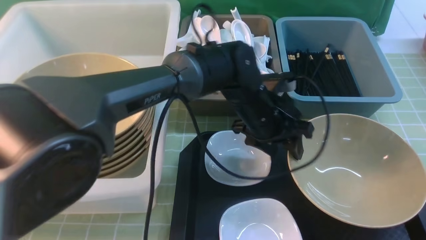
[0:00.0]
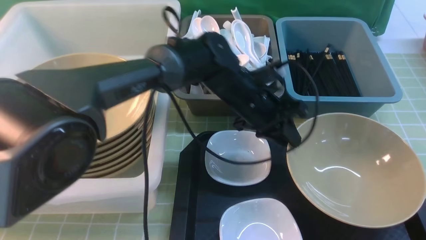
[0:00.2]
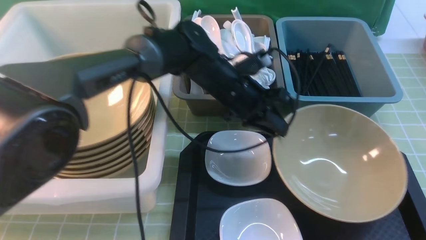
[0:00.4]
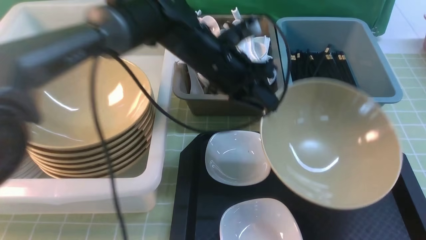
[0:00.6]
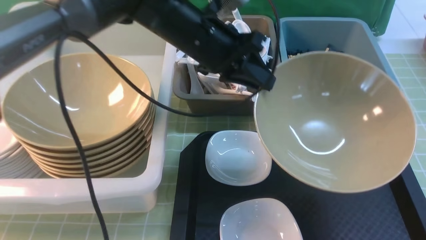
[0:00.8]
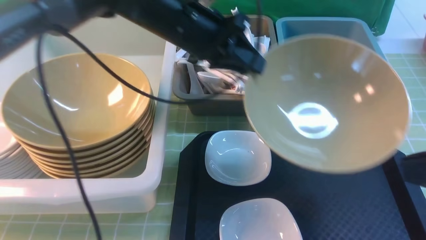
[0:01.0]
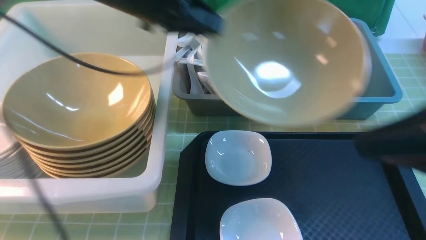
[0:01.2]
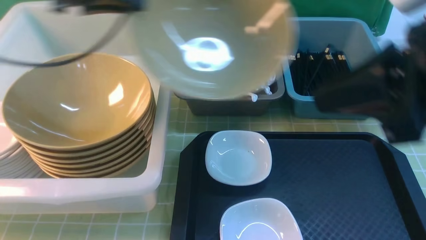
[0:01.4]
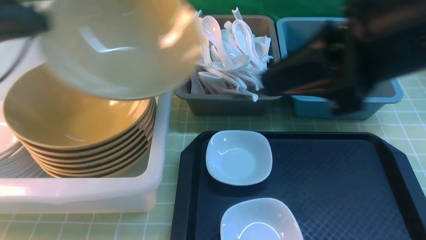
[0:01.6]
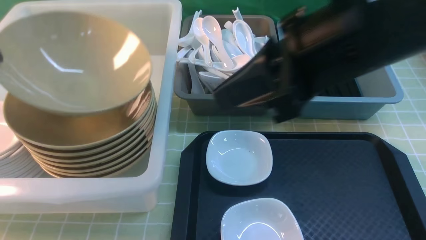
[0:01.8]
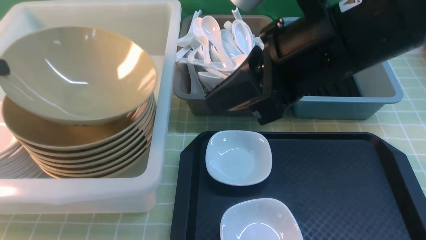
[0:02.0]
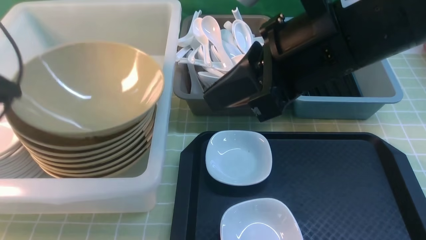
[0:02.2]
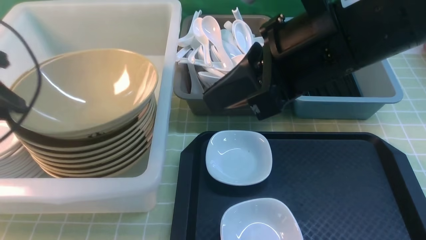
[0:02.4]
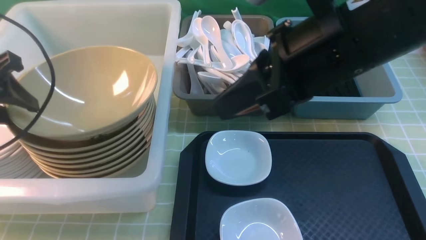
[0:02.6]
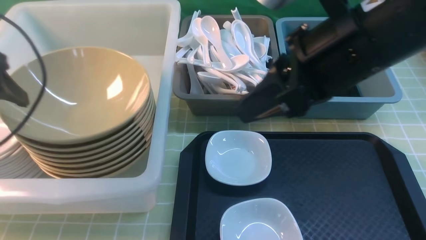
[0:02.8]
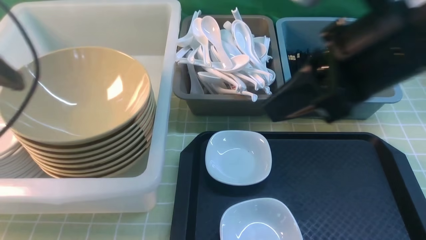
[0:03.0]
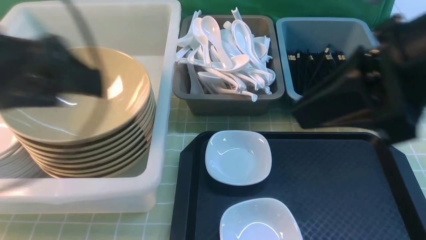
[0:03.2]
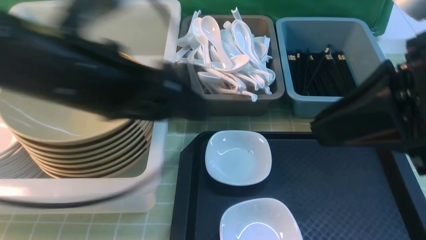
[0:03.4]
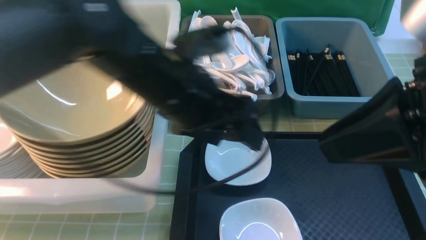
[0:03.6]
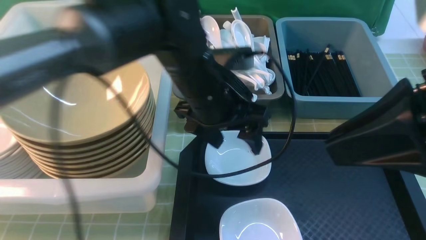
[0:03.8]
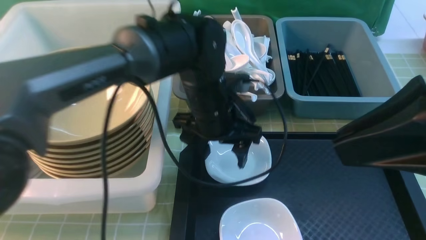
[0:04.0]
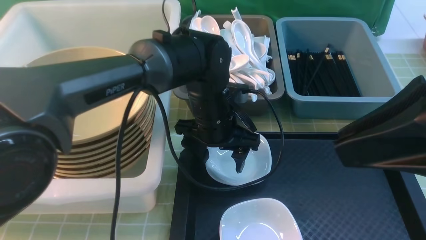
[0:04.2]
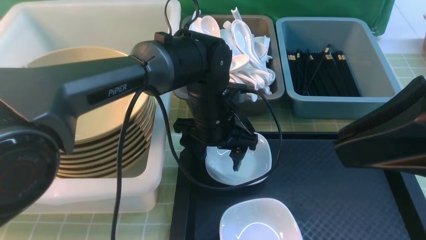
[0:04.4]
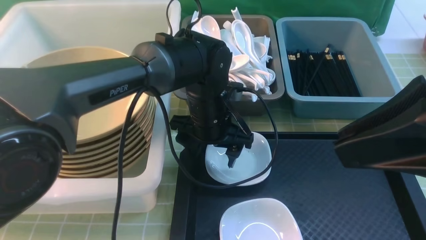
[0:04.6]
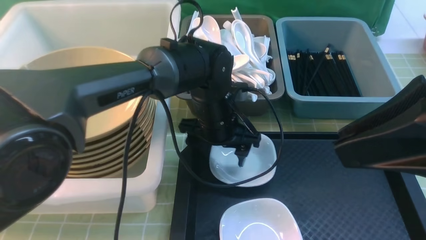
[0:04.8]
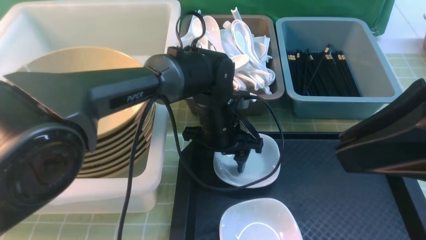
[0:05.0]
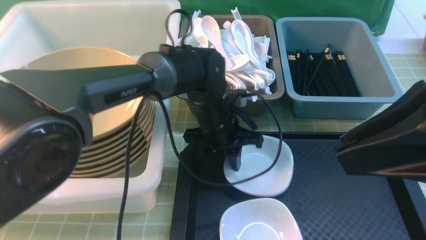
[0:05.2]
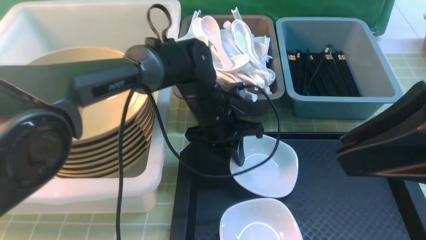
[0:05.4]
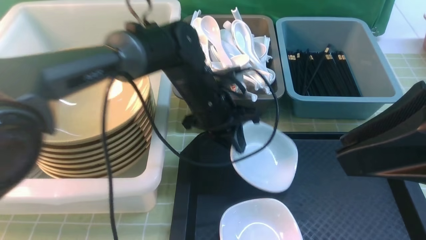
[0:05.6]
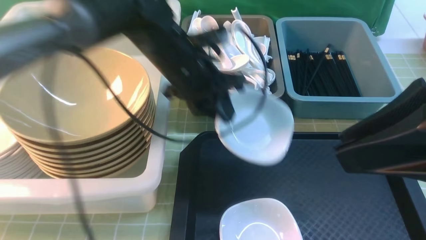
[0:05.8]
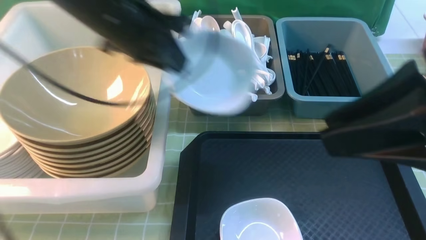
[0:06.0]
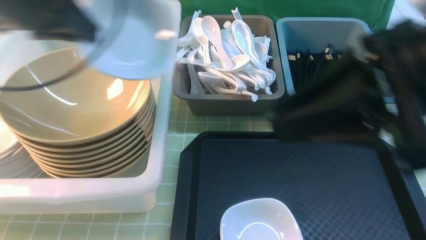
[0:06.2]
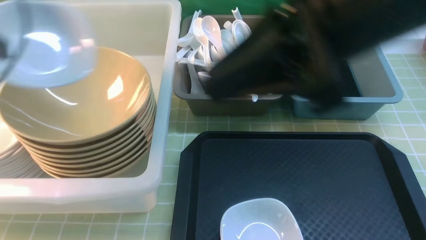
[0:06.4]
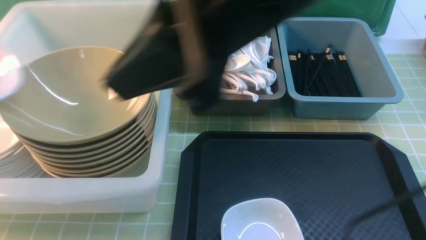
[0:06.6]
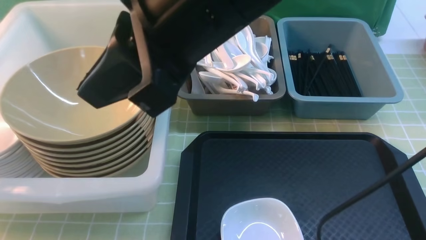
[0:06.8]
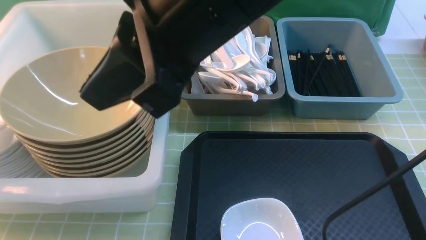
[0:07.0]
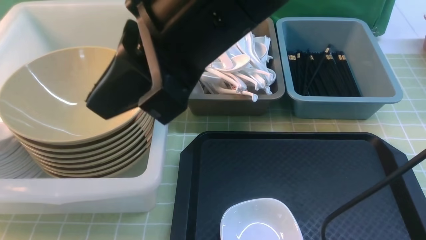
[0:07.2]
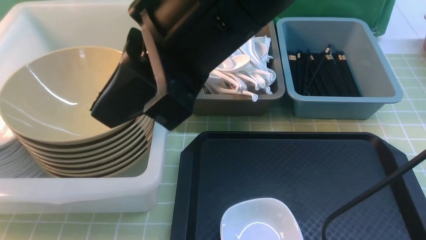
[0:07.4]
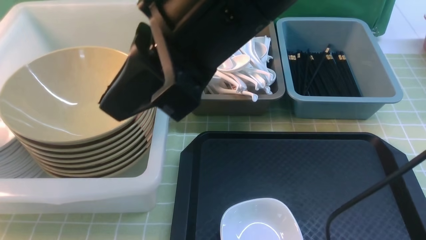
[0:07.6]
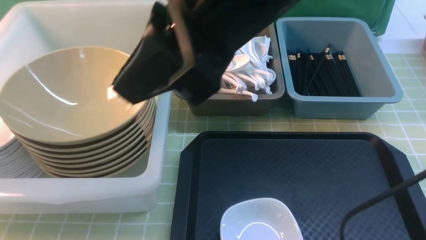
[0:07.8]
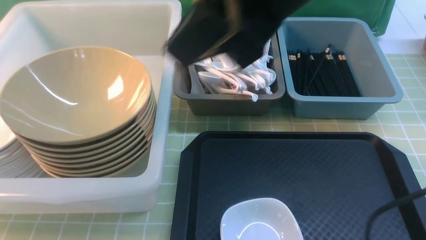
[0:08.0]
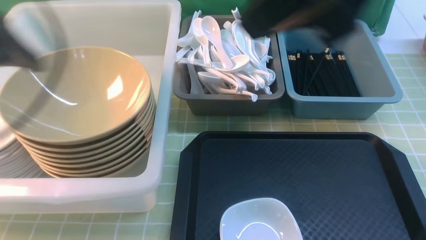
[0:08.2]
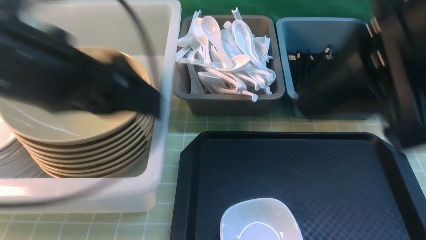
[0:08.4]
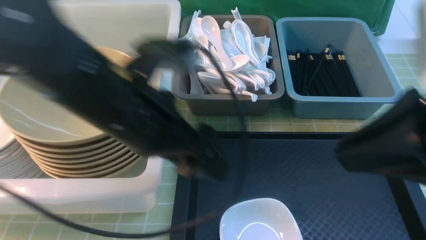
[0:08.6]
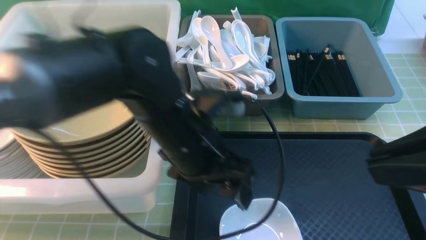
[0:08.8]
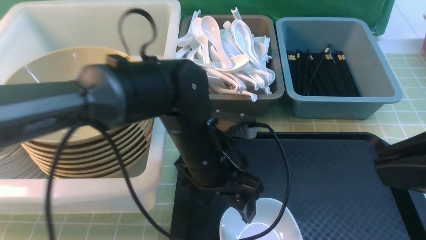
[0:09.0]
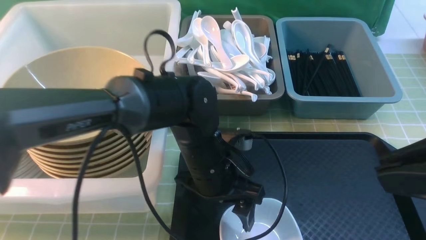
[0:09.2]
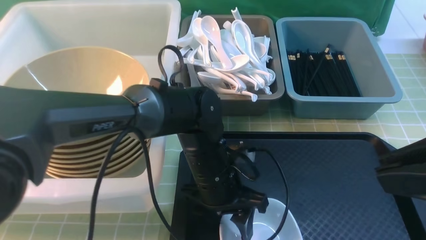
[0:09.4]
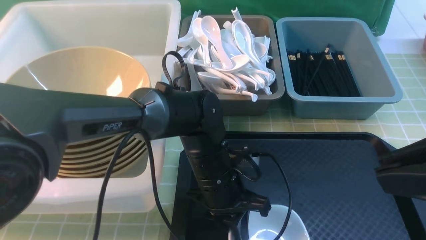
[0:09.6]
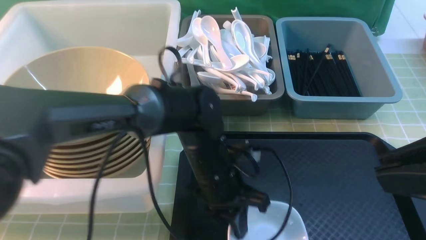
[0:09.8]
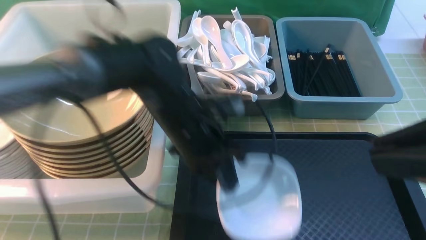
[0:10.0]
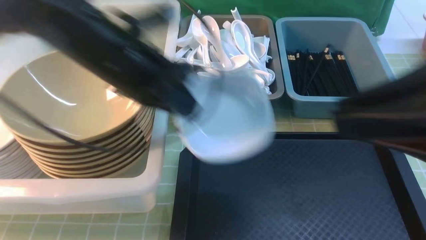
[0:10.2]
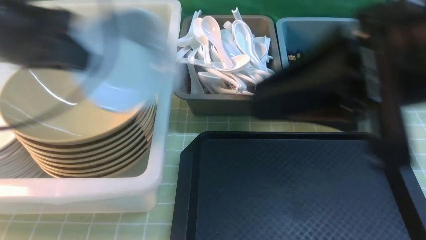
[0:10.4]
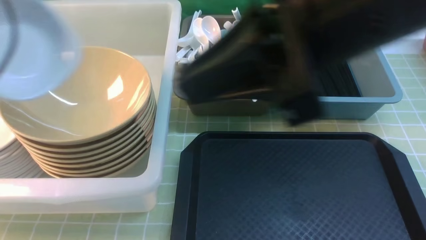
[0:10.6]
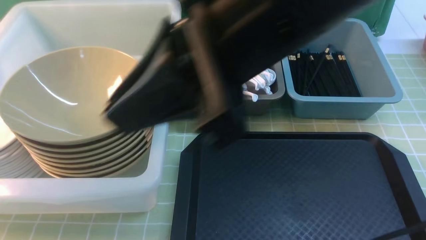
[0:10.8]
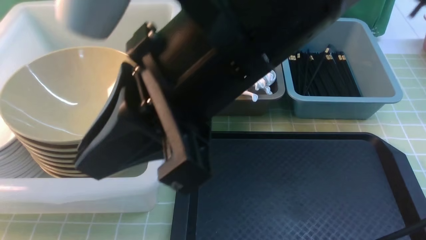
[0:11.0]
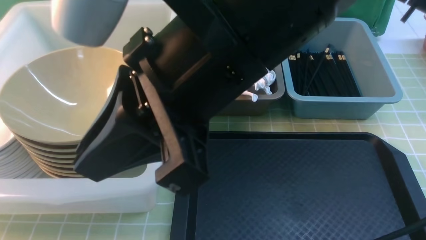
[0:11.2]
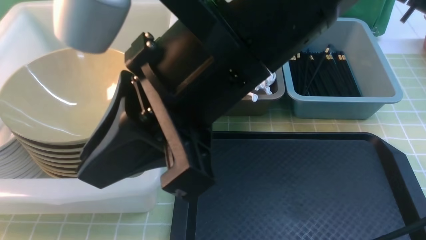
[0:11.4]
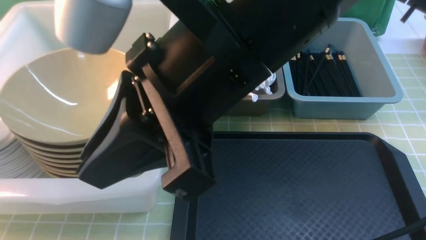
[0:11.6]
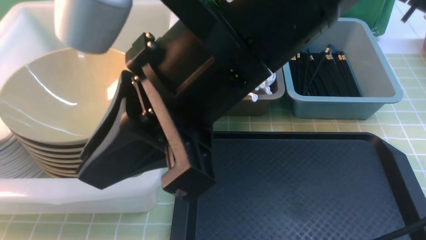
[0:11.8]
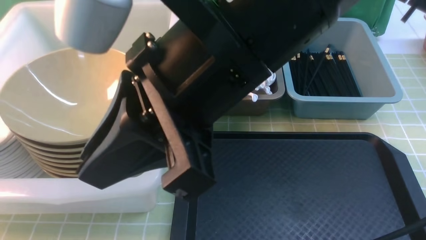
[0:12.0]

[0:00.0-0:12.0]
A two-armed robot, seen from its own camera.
Task of the whole recording: on green table put chopsticks spoon bowls plates into blue grey white boxes.
Step, 0:00.0 to 0:00.8: use the left arm to grab the yellow noodle bowl on the left.
Step, 0:01.0 to 0:02.8: use the left arm to put the noodle bowl into the large storage box on the left.
Step, 0:03.2 to 0:05.4: use the left arm to grab the plate.
Step, 0:05.8 to 0:07.8: use the left arm to put the plate into the large storage box on the left.
Step, 0:08.0 to 0:09.8: use the left arm to grab the plate.
0:00.0 to 0:01.6: The left gripper travels to the left and upward by about 40 cm, and closes up; the right gripper heads forward, to the left and upward, covering some 20 cm.
0:01.6 to 0:03.0: The left gripper moves backward and to the right, about 10 cm, and opens up.
0:03.0 to 0:04.4: The left gripper moves to the right, downward and forward, about 35 cm; the right gripper is displaced backward by about 5 cm.
0:04.4 to 0:06.0: The left gripper is displaced upward and to the left by roughly 25 cm, and closes its fingers.
0:06.0 to 0:07.6: The left gripper moves to the left, roughly 25 cm, and opens its fingers, while the right gripper moves to the left and forward, approximately 15 cm.
0:07.6 to 0:09.0: The left gripper moves to the right, some 40 cm, while the right gripper goes approximately 25 cm to the right and backward.
0:09.0 to 0:10.4: The right gripper moves to the left and forward, roughly 10 cm. The left gripper goes approximately 30 cm to the left and upward, and closes its fingers.
0:10.4 to 0:12.0: The right gripper moves to the left, roughly 15 cm, while the left gripper shifts some 15 cm to the left and downward, and opens up.

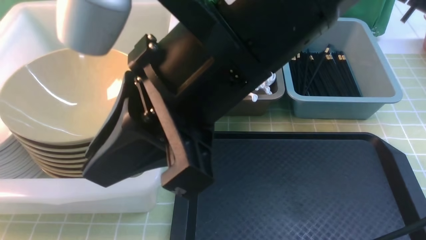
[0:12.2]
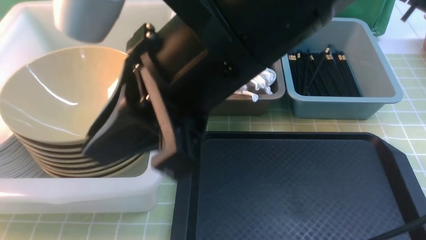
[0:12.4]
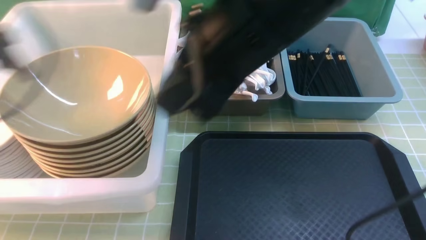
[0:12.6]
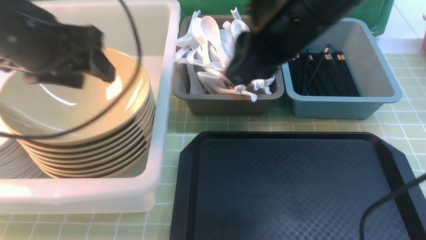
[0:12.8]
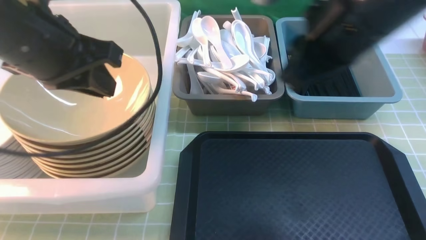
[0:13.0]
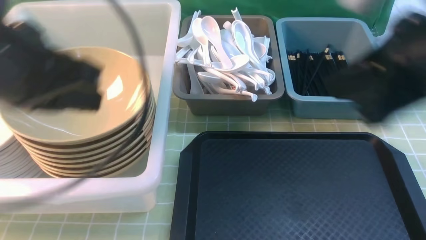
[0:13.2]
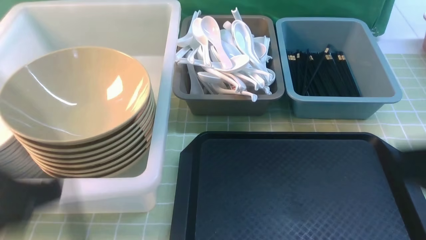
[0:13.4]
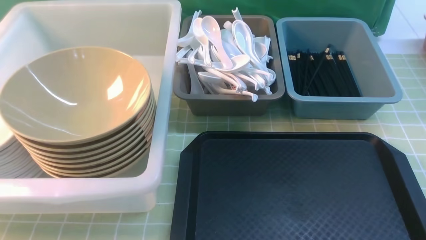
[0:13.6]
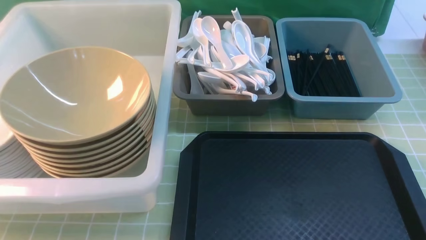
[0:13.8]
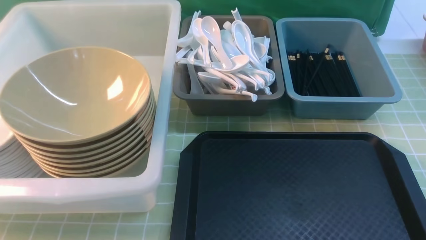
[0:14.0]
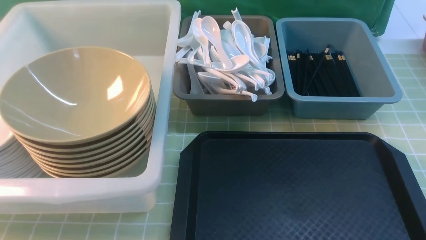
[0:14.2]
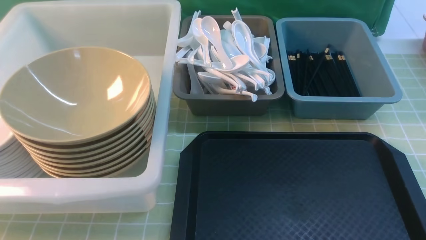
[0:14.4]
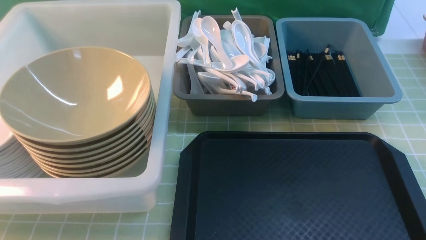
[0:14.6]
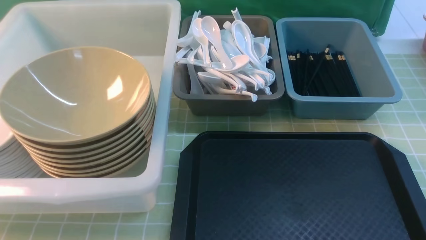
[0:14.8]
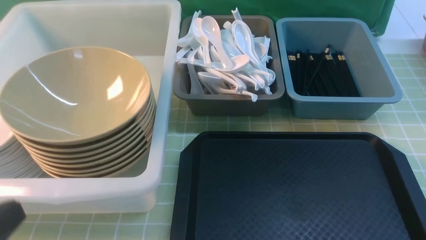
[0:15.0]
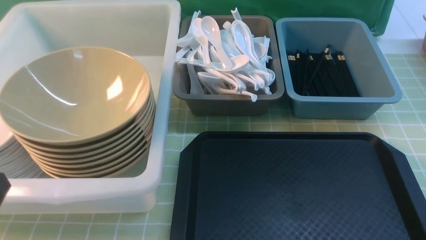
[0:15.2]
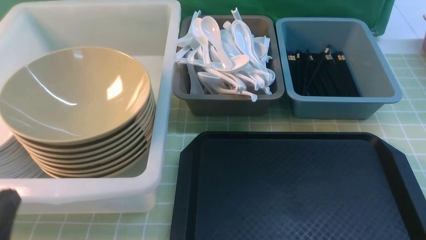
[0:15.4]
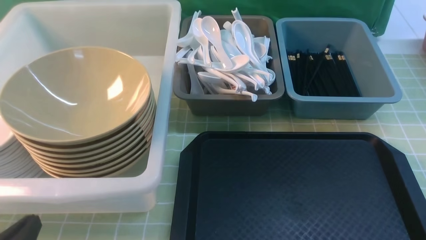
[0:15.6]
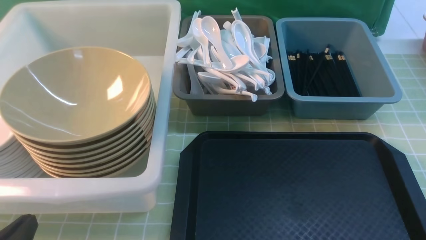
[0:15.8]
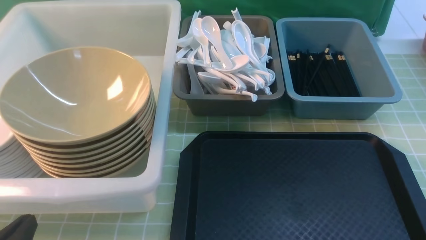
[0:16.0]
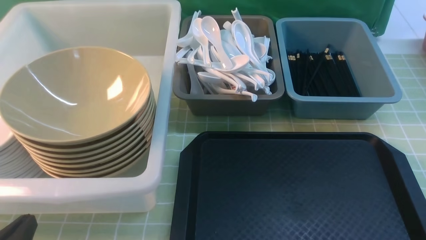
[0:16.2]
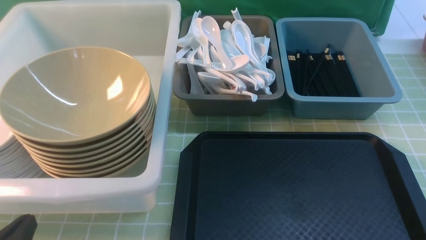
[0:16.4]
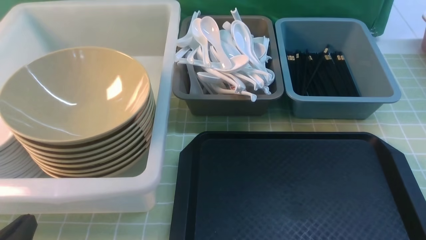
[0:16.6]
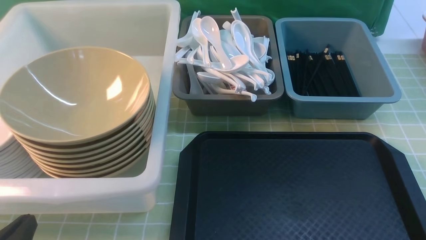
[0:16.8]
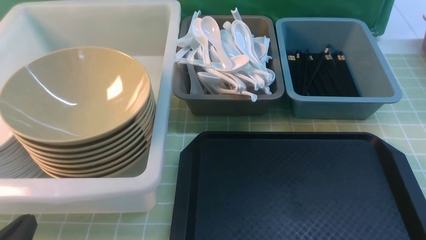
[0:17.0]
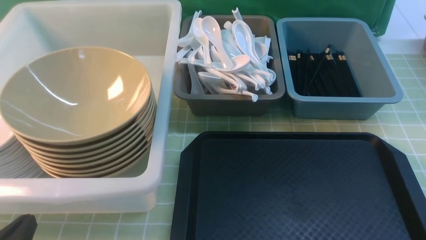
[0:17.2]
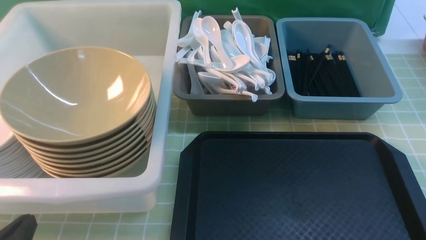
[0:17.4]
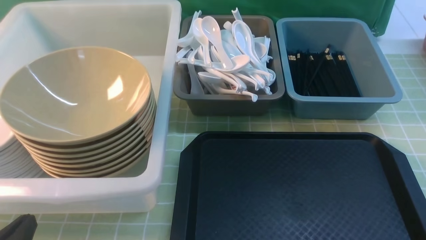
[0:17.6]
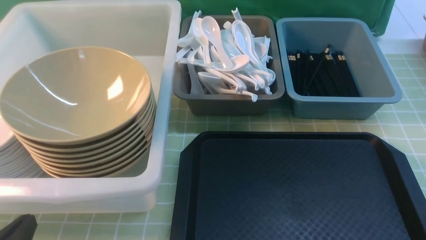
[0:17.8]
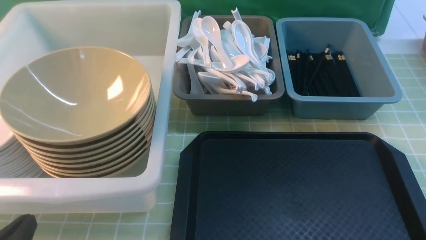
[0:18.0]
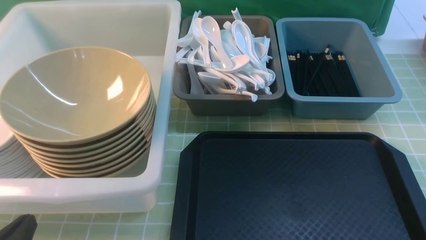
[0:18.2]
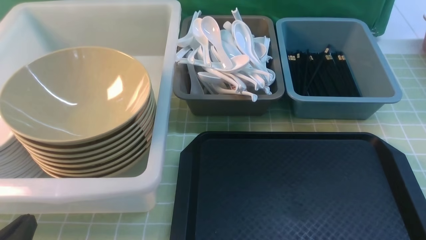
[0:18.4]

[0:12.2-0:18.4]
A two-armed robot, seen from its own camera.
Task of the whole recording: on green table put chopsticks spoon bowls plates into blue grey white boxes.
0:12.2 to 0:13.8: The right gripper goes about 35 cm to the right, backward and downward; the left gripper goes some 30 cm backward and to the right, and closes up.
0:13.8 to 0:15.4: The left gripper heads downward and forward, covering roughly 10 cm.
0:15.4 to 0:16.8: The grippers move only a little.
